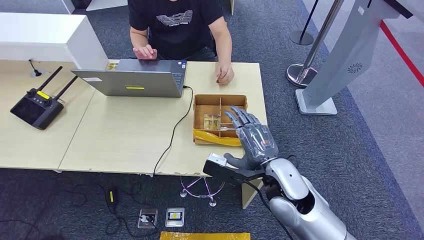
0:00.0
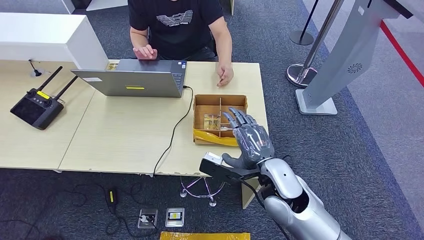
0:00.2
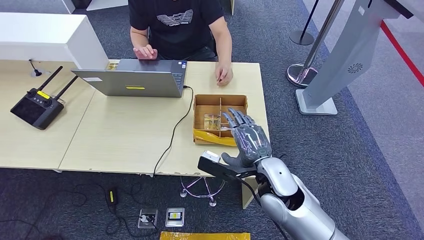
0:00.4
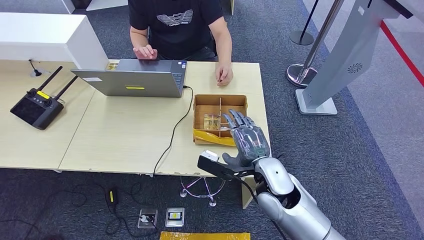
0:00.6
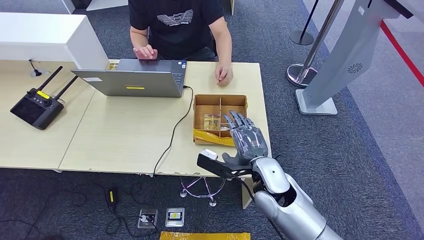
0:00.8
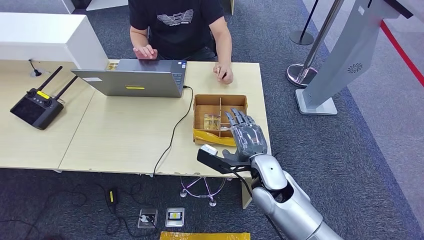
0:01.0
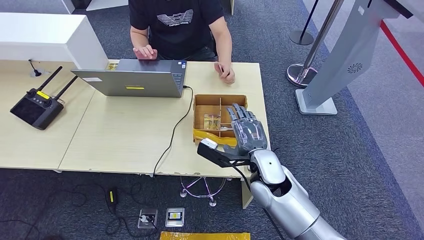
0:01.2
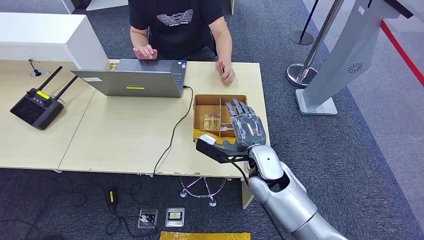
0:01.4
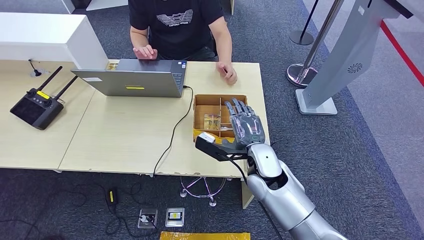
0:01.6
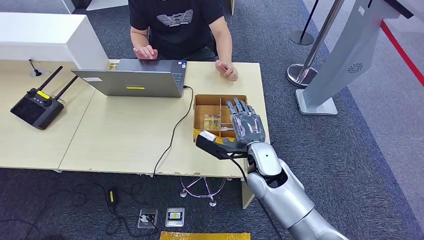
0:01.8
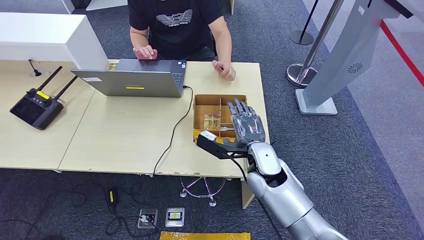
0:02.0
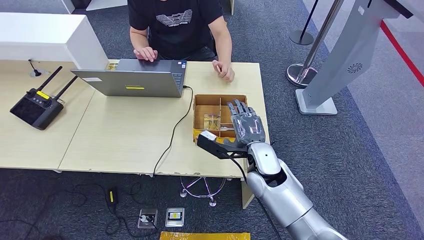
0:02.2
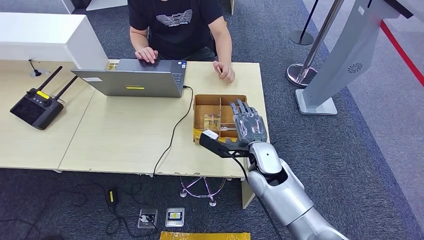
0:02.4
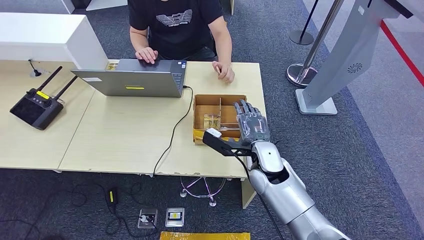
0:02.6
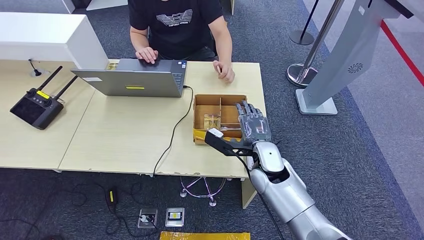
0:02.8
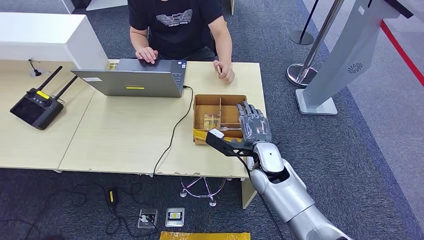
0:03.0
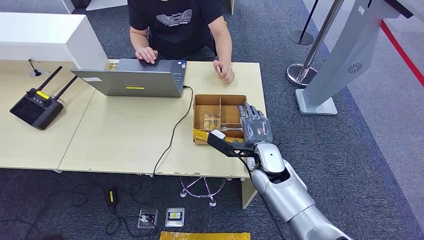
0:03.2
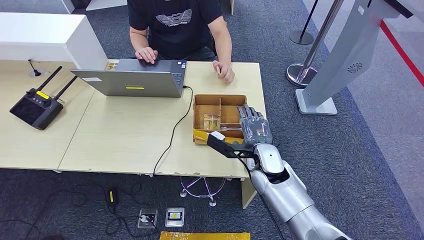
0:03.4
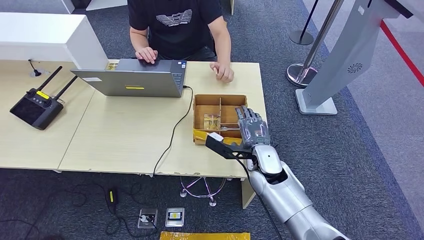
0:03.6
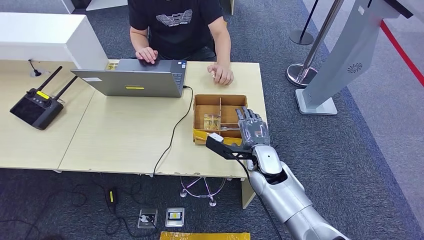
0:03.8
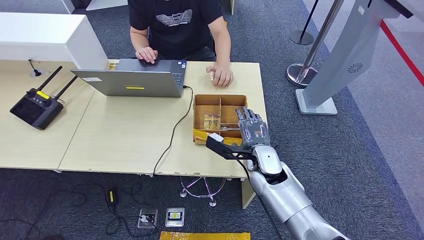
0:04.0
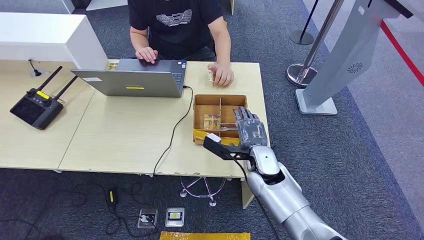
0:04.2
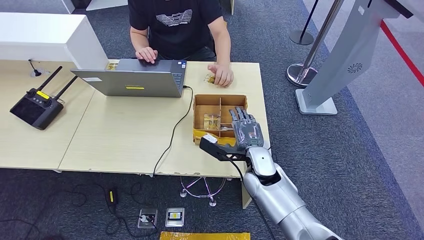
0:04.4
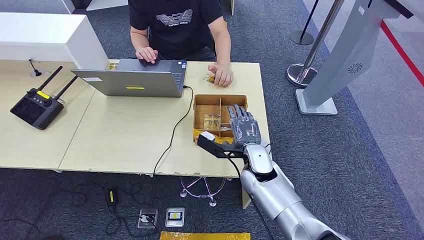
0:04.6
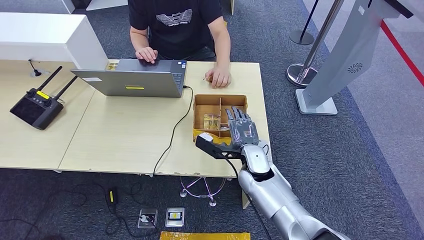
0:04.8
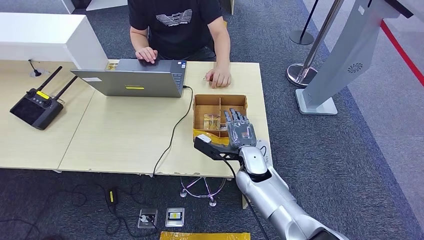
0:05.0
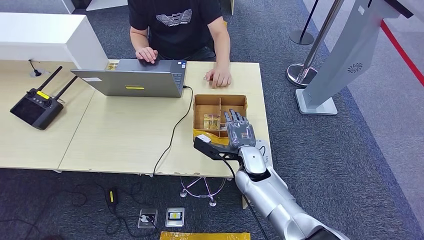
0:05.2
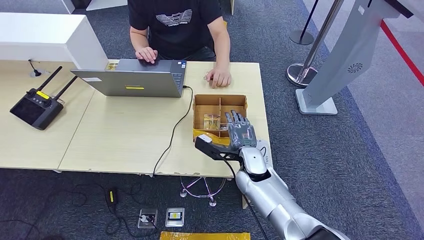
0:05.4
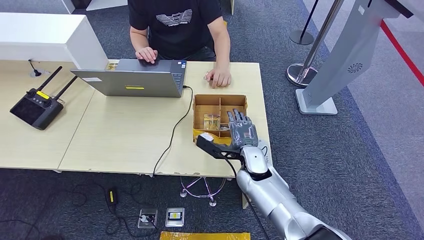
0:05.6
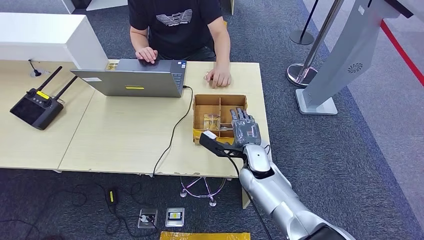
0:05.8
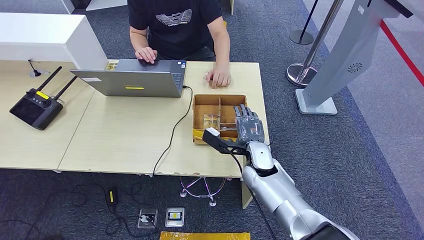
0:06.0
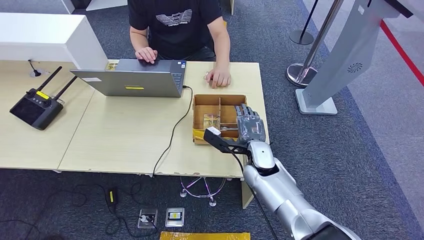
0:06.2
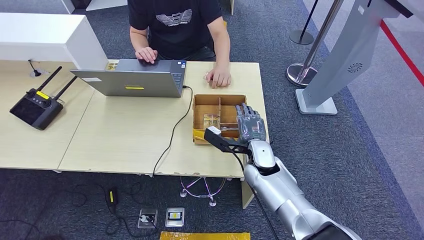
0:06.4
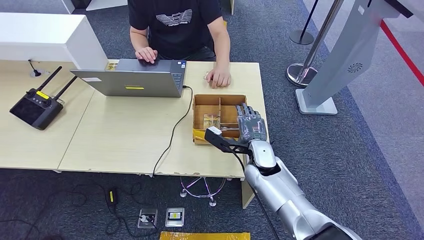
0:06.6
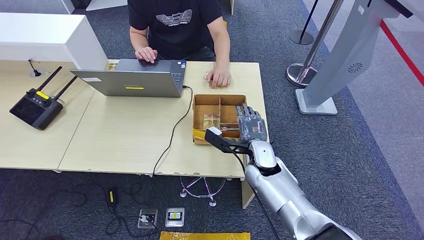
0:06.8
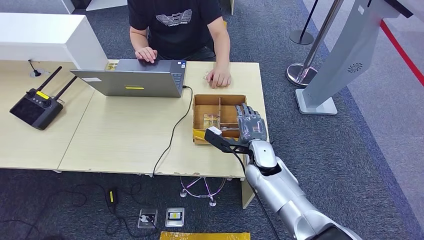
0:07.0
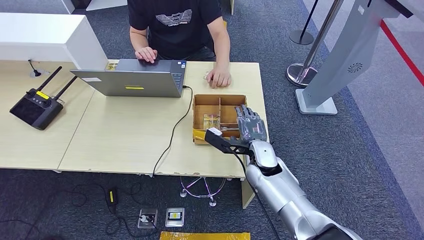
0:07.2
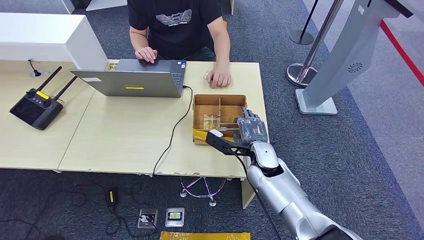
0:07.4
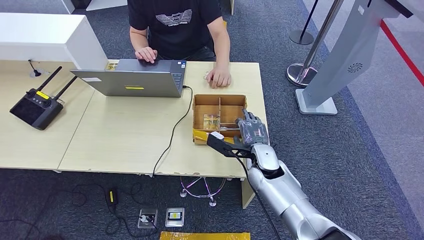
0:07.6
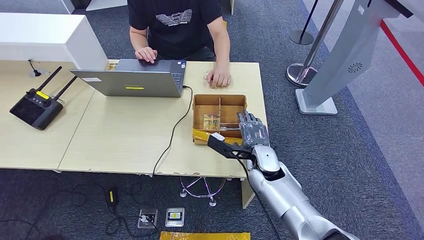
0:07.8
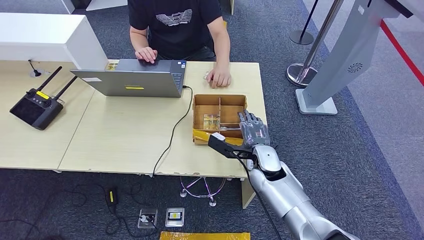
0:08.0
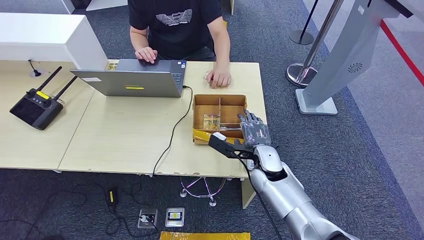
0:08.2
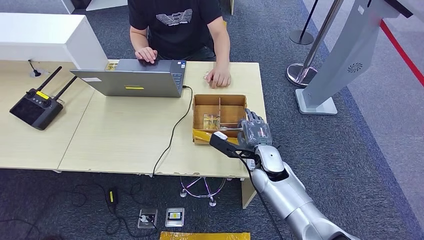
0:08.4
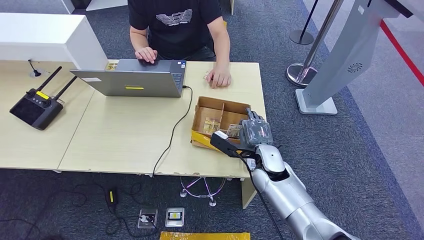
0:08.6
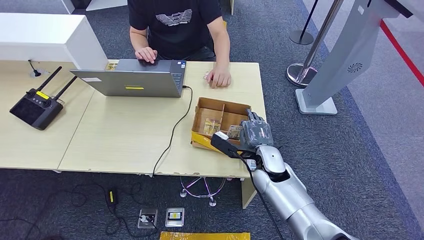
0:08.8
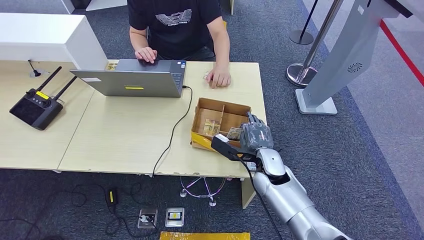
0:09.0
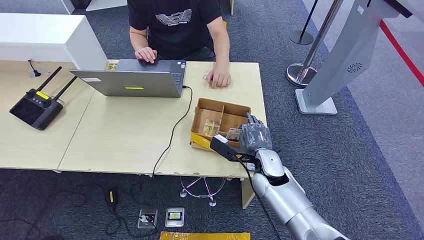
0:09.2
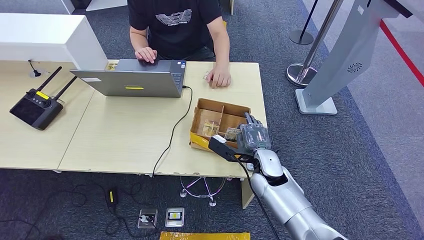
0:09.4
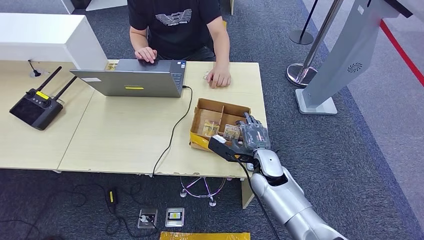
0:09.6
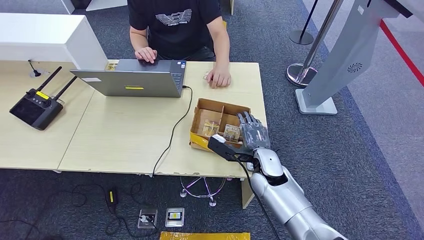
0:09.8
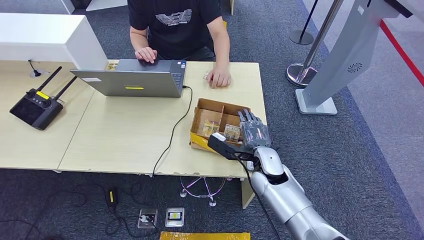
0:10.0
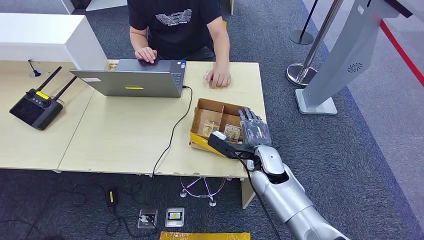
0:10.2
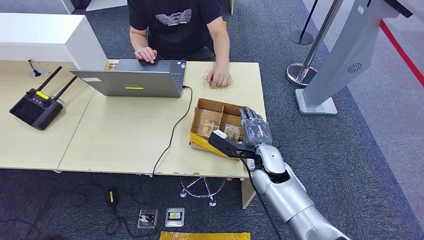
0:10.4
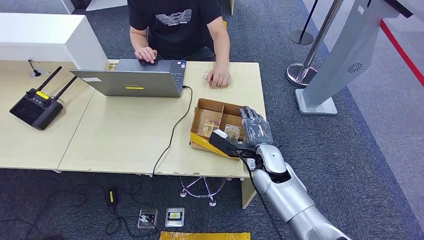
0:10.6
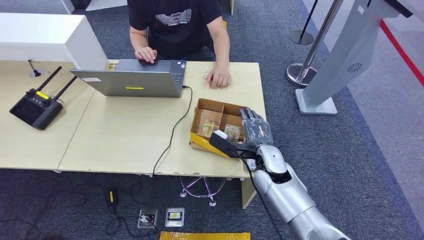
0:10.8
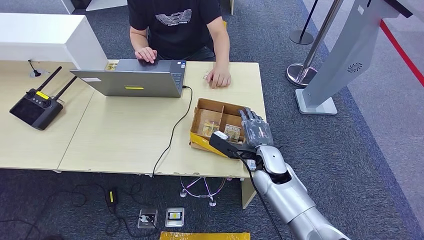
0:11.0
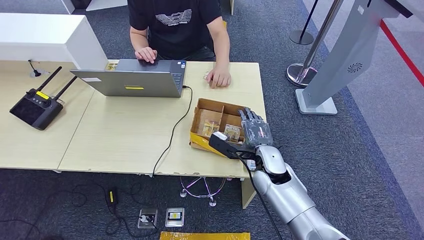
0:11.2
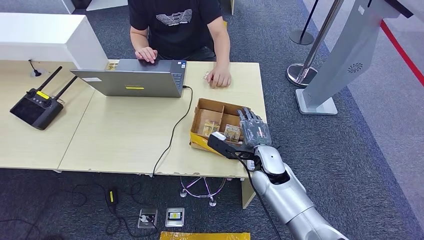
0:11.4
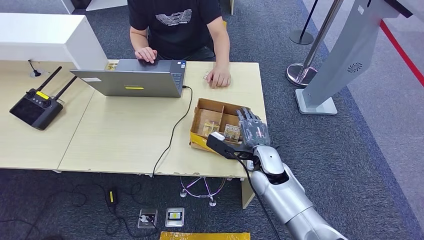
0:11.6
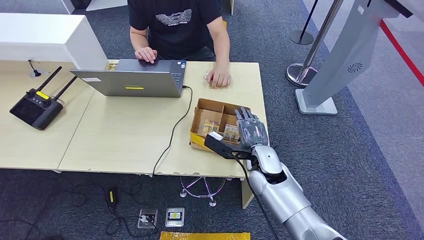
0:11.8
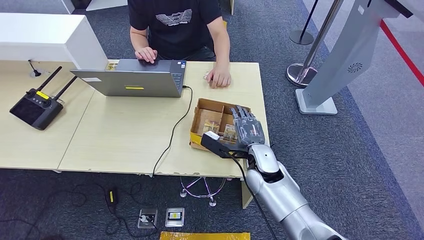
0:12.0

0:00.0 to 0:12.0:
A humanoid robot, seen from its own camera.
0:00.0 to 0:01.6: The right hand is displaced forward by about 5 cm.
0:01.6 to 0:04.4: The hands make only small movements.
0:04.4 to 0:12.0: The hands stay close to where they were, moving slightly.

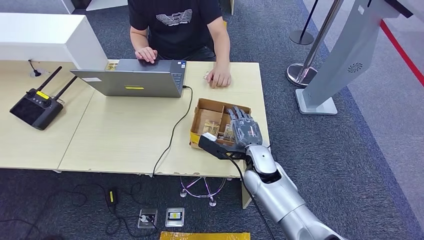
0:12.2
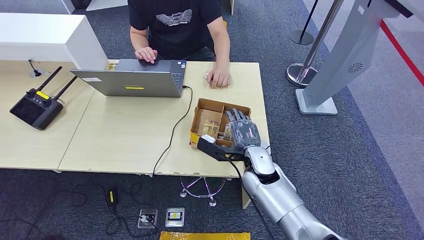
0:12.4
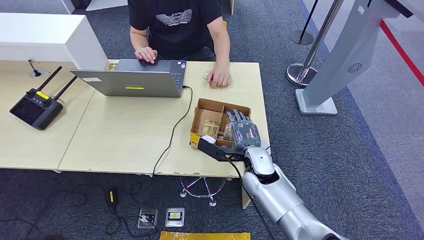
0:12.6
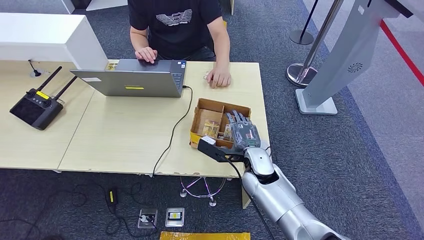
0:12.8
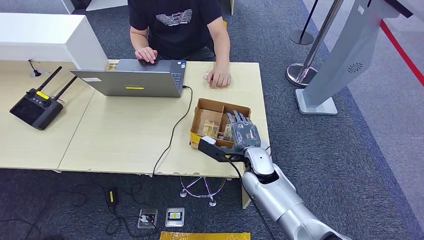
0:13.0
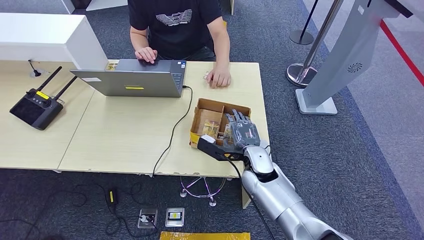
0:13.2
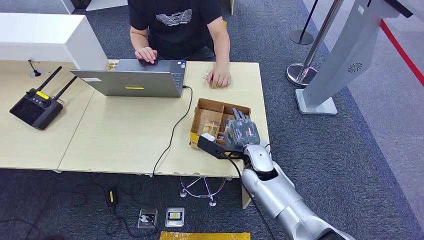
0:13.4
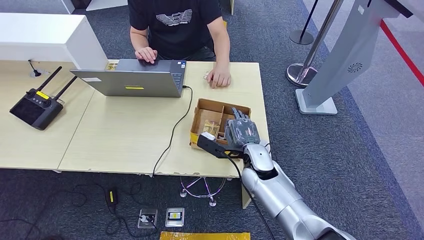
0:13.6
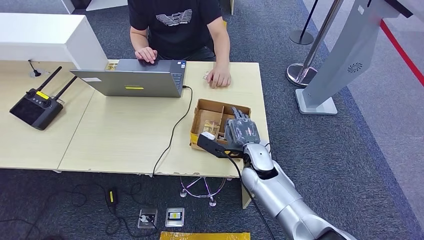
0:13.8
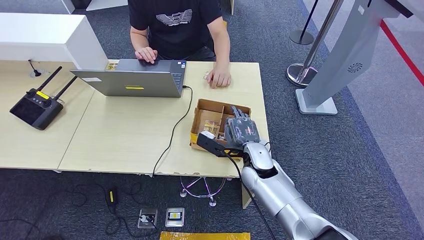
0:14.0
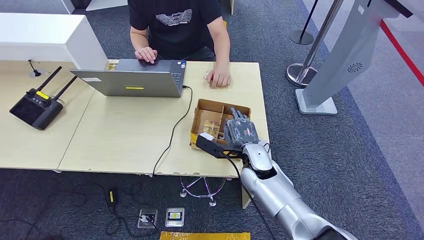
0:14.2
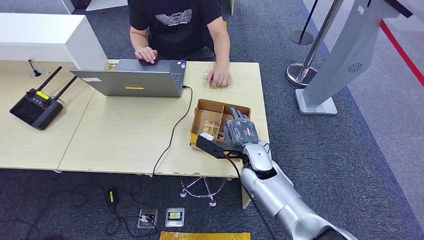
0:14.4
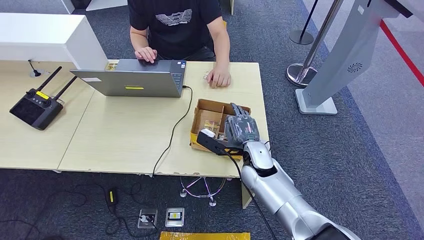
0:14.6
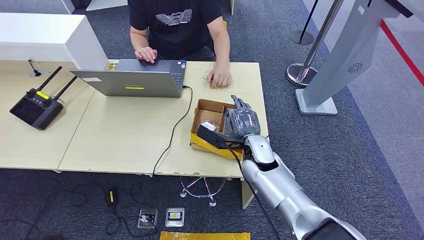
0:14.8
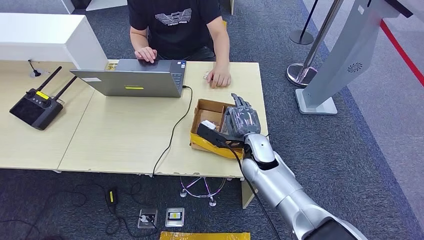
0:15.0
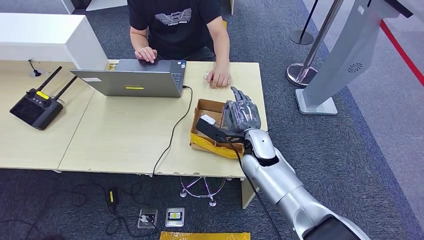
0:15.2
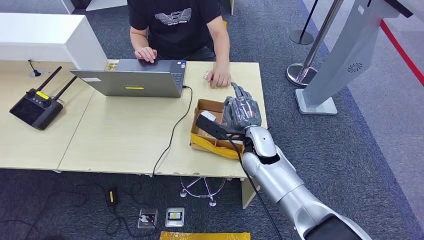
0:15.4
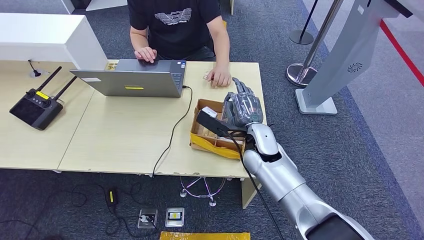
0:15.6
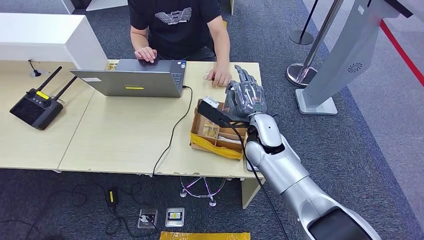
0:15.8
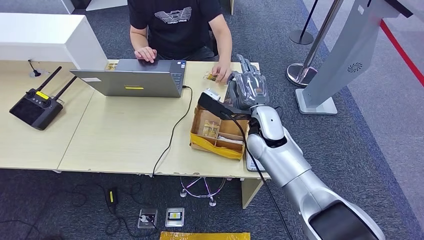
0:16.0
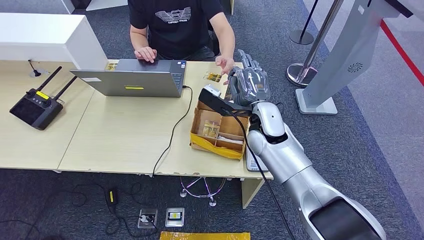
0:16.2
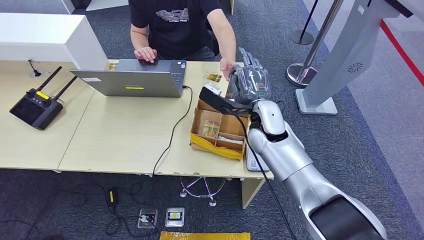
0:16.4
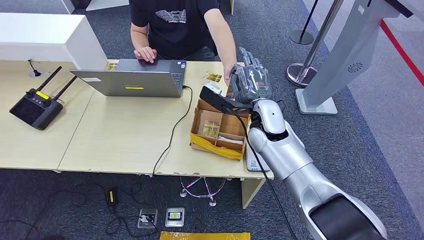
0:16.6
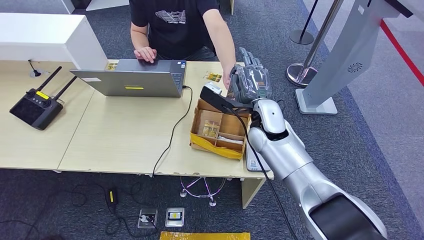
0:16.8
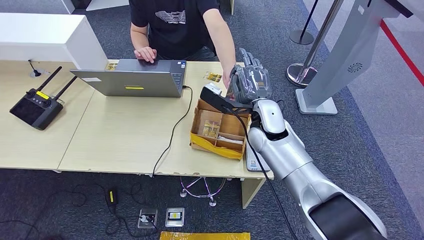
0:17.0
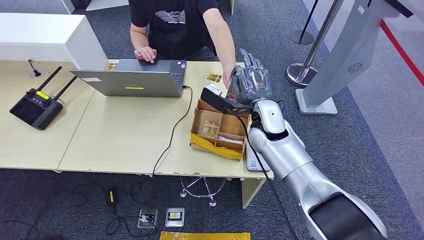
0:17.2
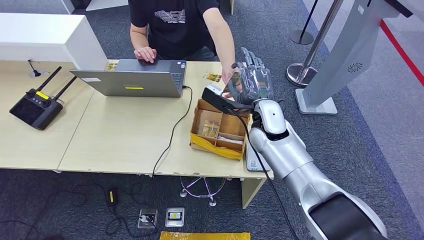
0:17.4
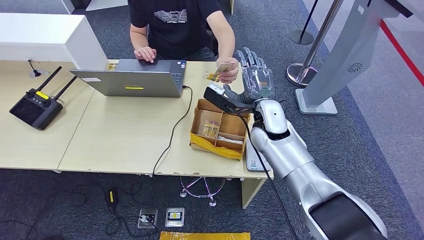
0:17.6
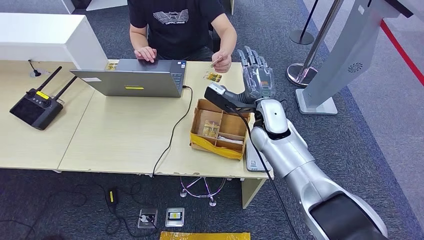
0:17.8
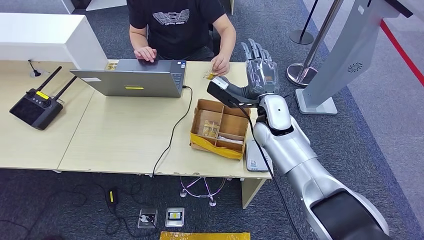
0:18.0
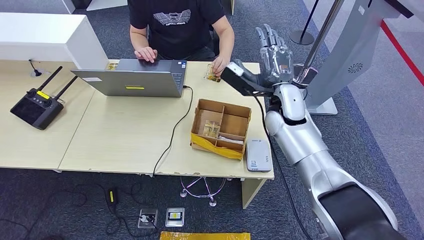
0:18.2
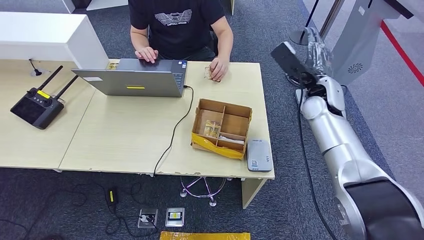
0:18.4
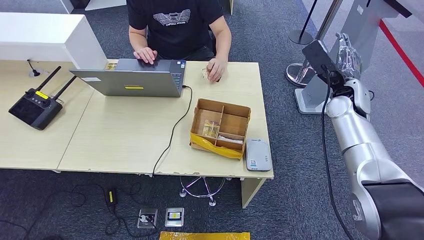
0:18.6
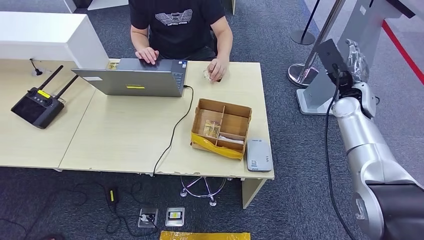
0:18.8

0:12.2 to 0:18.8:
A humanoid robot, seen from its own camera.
Step, 0:12.2 to 0:16.4: Pick up the room key from the key card box.
Step, 0:16.6 to 0:18.8: Hand the room key to the person.
0:12.2 to 0:13.8: The two hands keep their place.
0:13.8 to 0:15.4: The right hand shifts by approximately 5 cm.
0:15.4 to 0:17.2: The right hand travels upward by approximately 5 cm.
